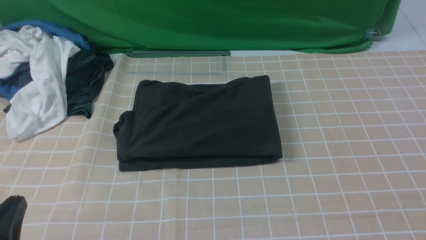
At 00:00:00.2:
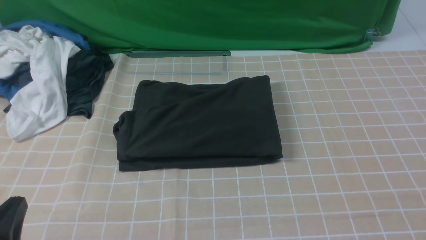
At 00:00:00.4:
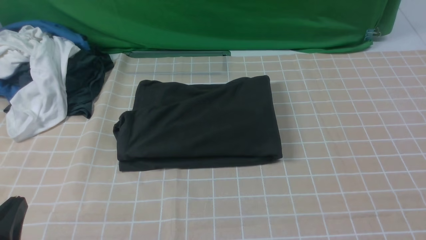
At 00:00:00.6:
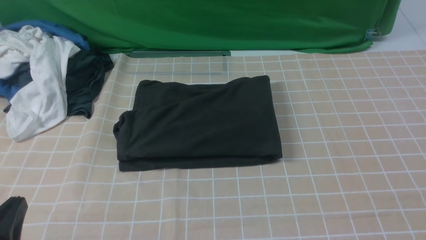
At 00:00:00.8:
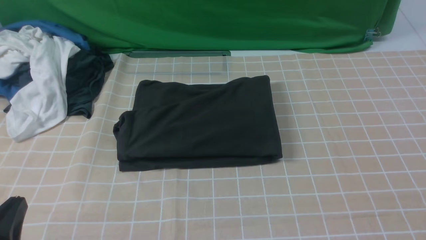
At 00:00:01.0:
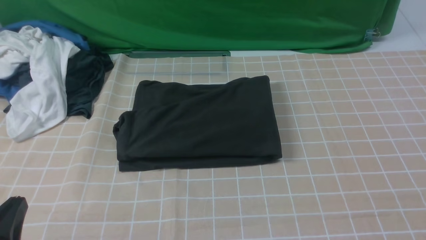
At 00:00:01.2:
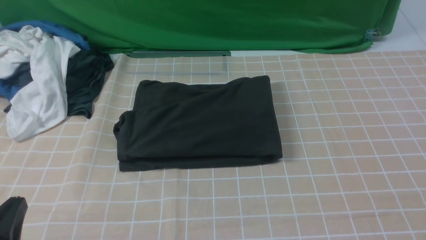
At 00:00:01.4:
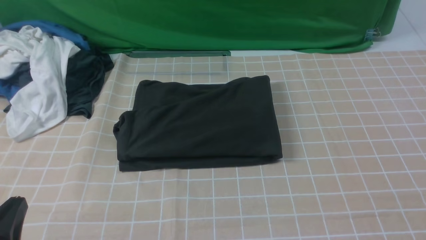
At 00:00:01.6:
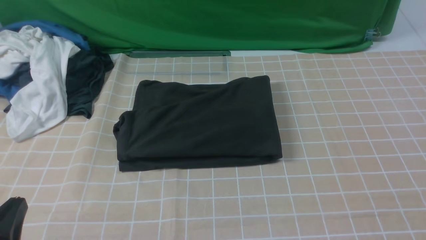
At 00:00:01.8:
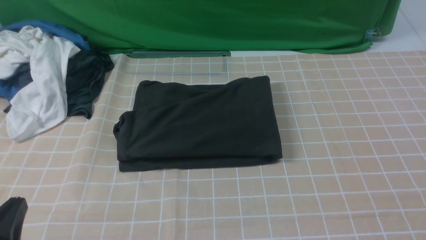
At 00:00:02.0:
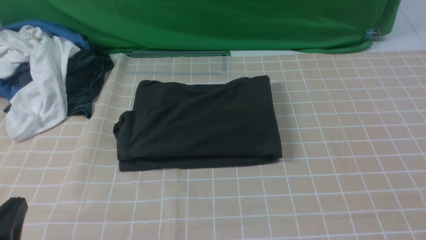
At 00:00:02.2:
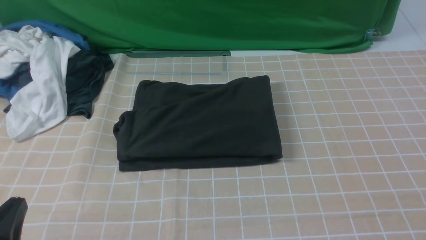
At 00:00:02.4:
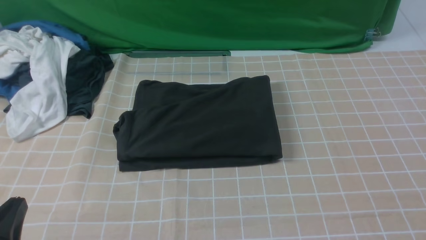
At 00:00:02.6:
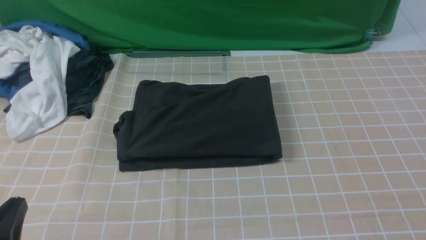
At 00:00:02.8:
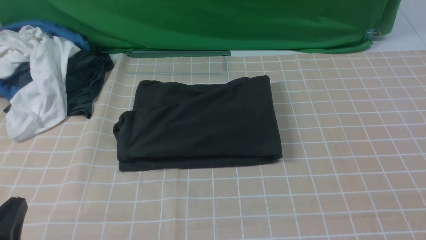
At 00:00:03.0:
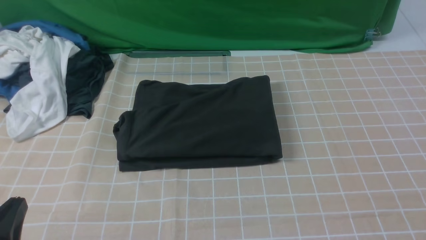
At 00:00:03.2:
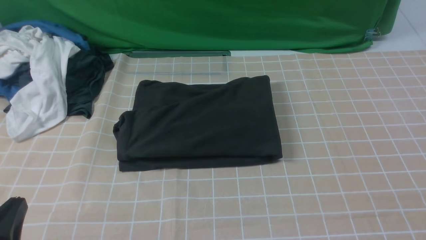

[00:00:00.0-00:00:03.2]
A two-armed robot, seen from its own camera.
00:00:01.6 to 00:00:03.2: Both grippers stay about where they are.
